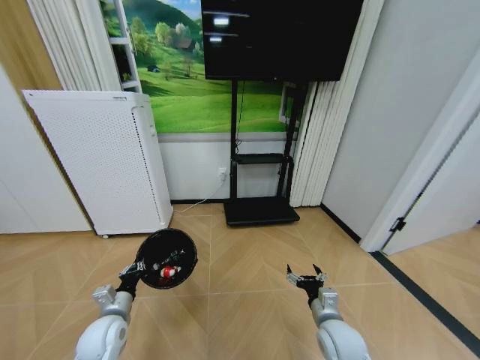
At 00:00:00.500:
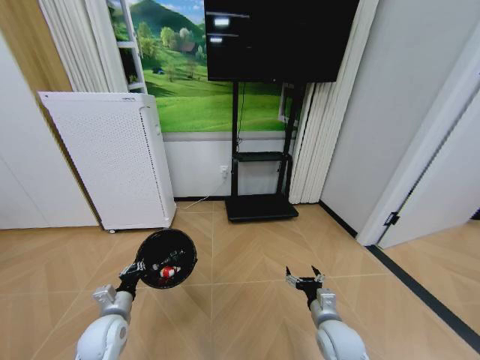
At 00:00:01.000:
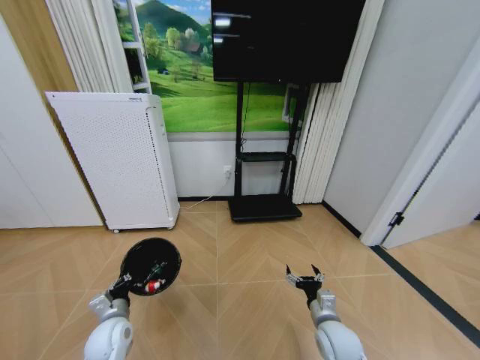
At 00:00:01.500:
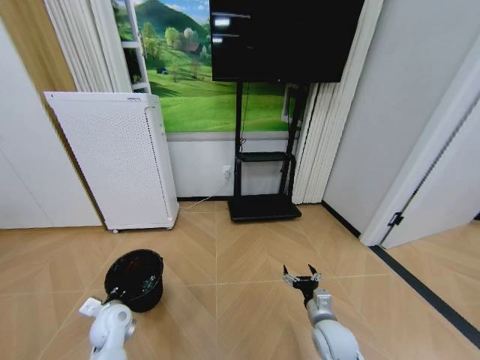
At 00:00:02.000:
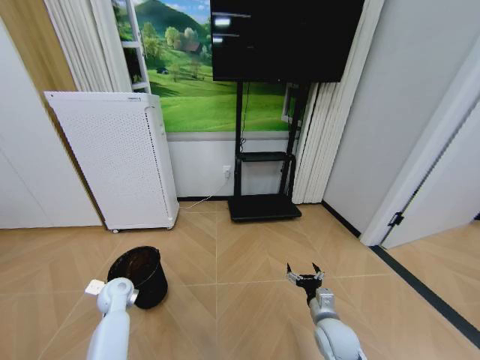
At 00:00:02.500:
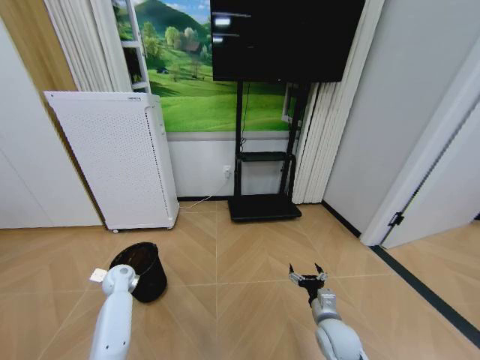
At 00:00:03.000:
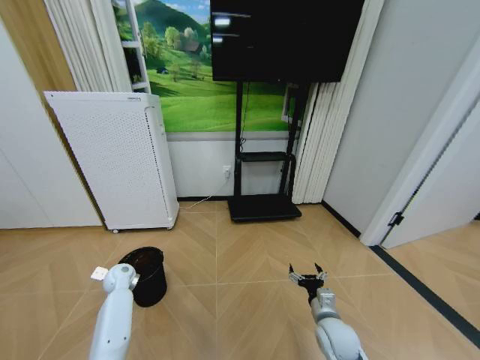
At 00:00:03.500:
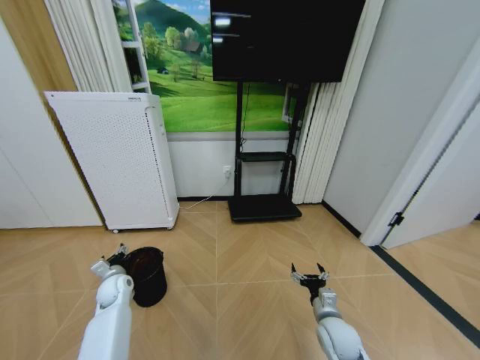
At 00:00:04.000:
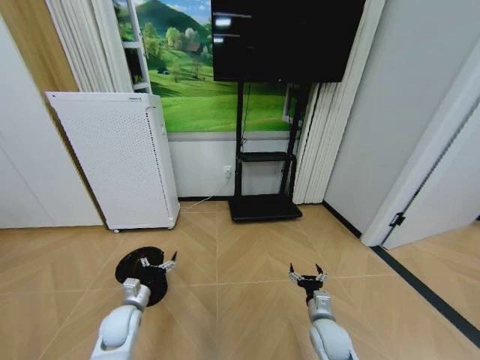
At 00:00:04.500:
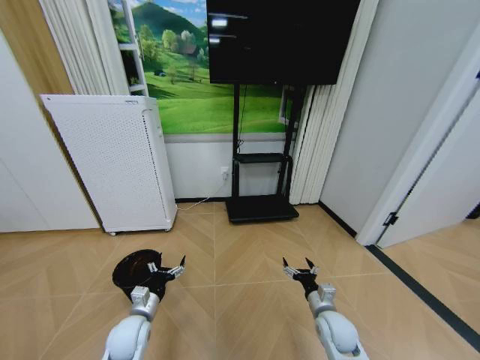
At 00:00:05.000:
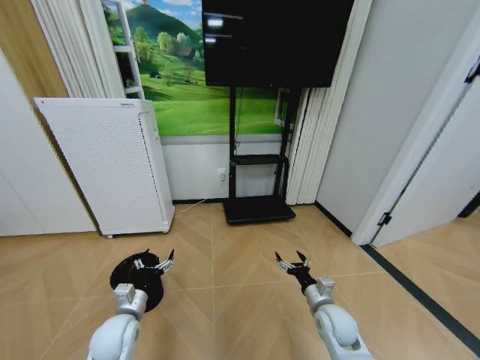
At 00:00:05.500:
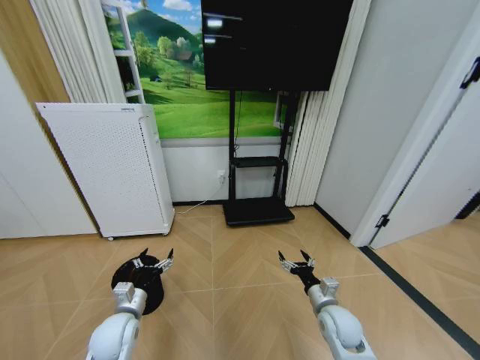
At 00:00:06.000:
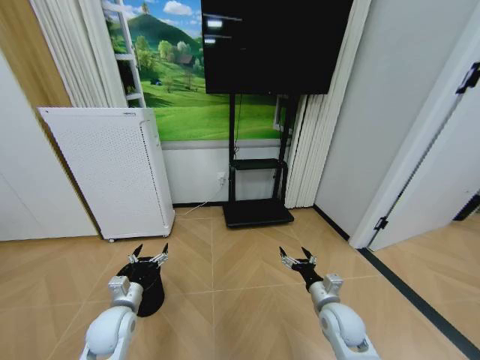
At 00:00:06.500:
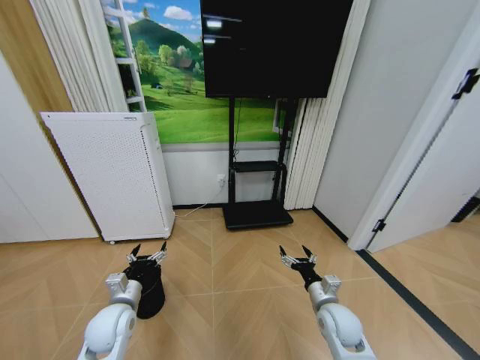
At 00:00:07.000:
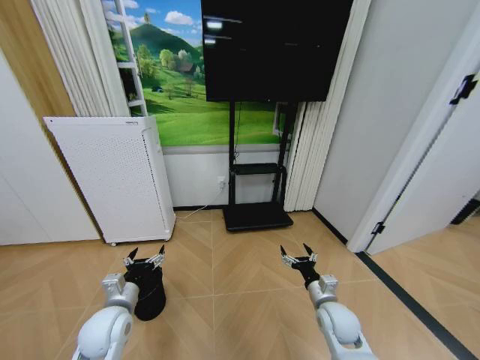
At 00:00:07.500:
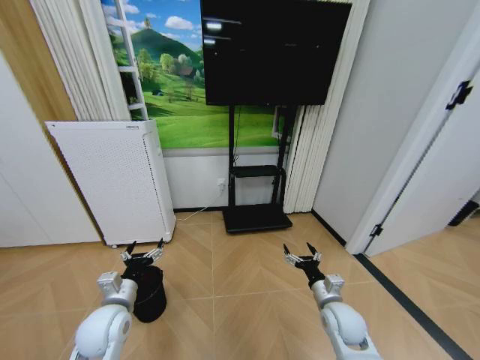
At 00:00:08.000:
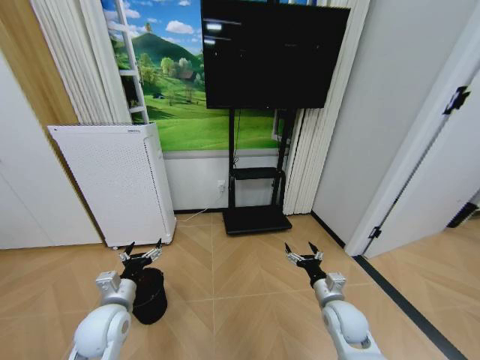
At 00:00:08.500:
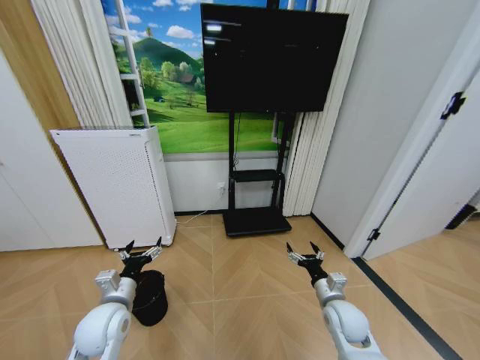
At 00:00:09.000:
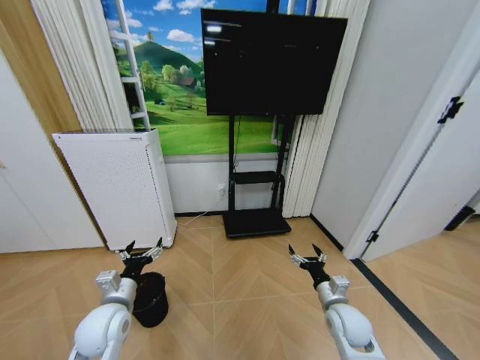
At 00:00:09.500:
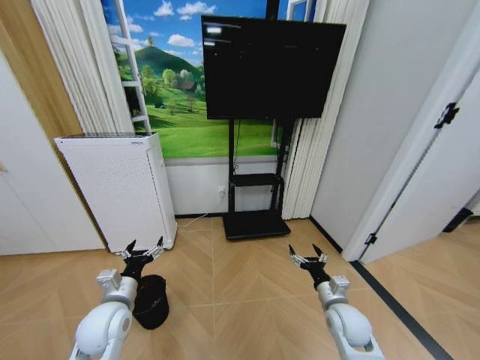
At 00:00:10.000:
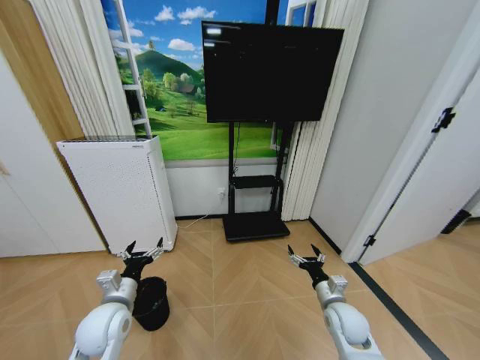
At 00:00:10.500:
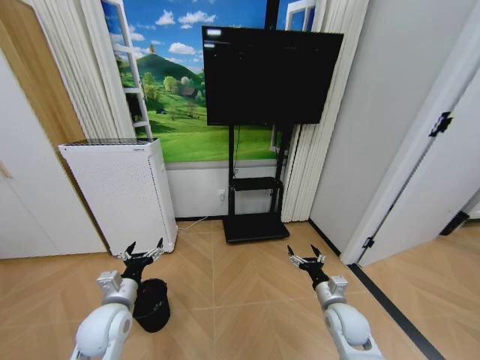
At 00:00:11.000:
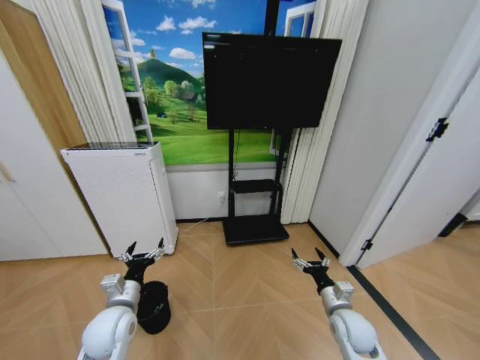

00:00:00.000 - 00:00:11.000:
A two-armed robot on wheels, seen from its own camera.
Task of the whole recording: Pick up the trash bin and place the garbage on the floor into it.
00:00:00.000 - 00:00:02.000: The left gripper heads forward, covering some 10 cm.
00:00:02.000 - 00:00:03.500: The left gripper opens up.
00:00:03.500 - 00:00:05.500: The left gripper shifts about 15 cm backward and to the right.
00:00:05.500 - 00:00:07.500: The left gripper heads upward, covering some 5 cm.
00:00:07.500 - 00:00:09.000: Neither gripper changes place.
00:00:09.000 - 00:00:11.000: The grippers stay close to where they were, moving slightly.
